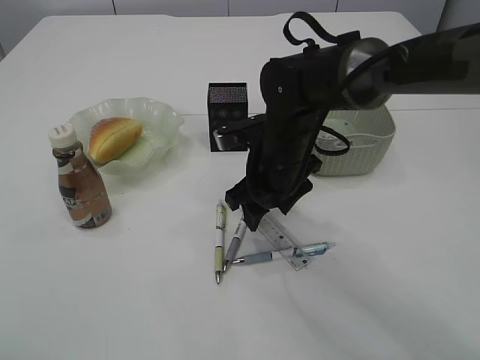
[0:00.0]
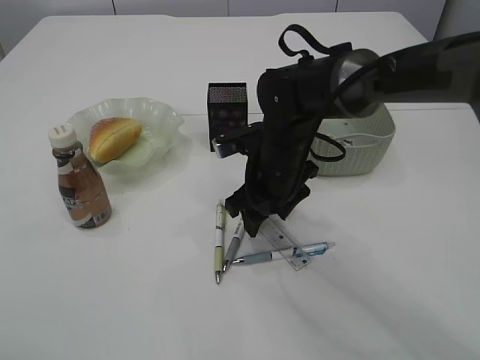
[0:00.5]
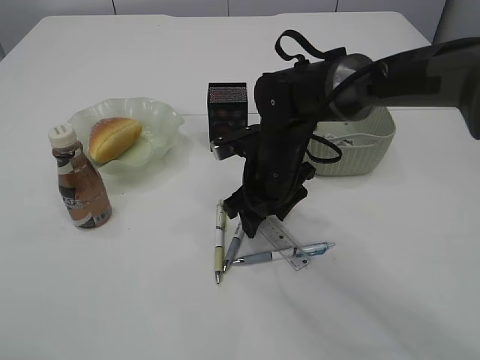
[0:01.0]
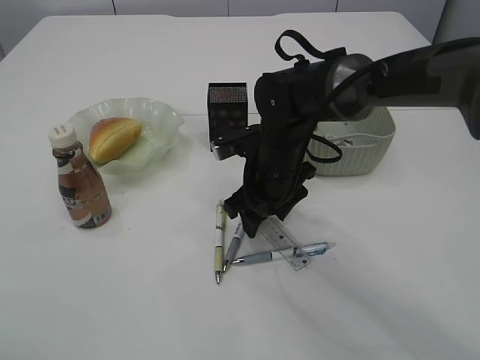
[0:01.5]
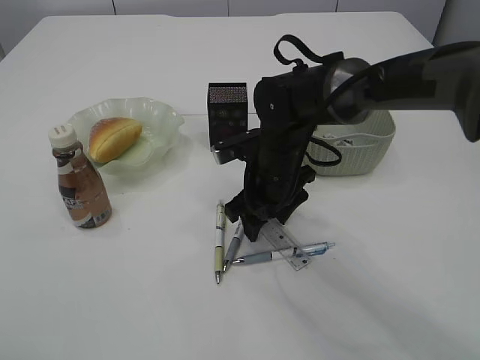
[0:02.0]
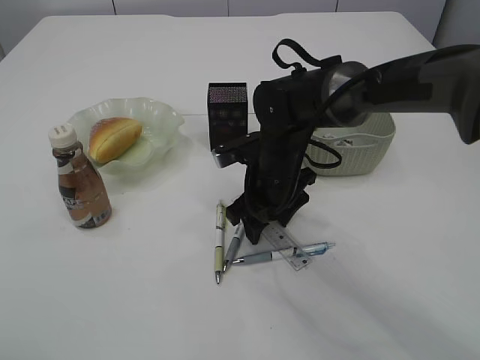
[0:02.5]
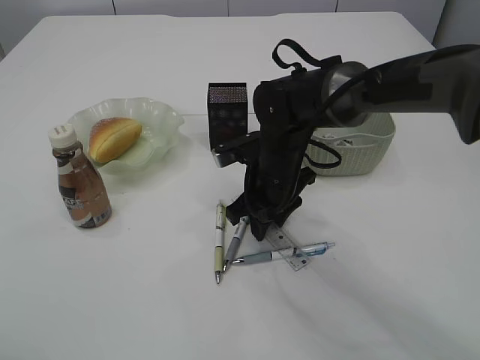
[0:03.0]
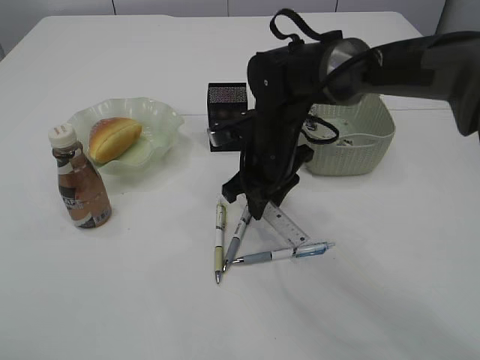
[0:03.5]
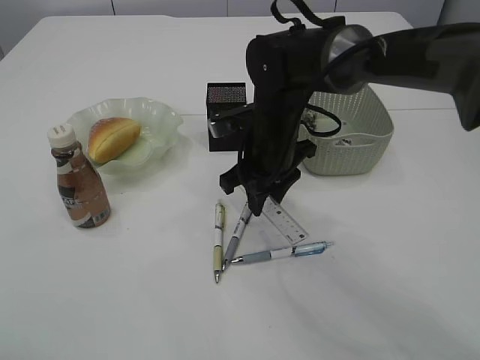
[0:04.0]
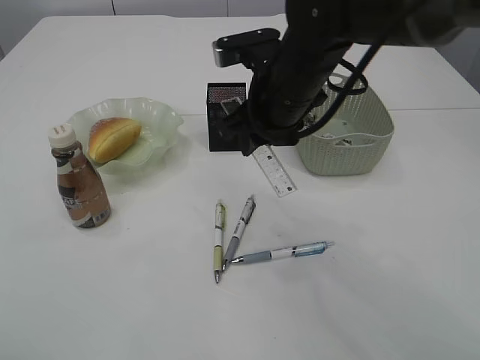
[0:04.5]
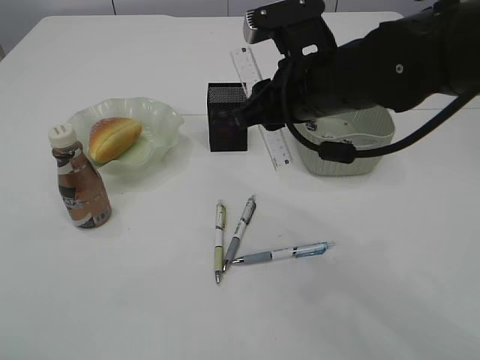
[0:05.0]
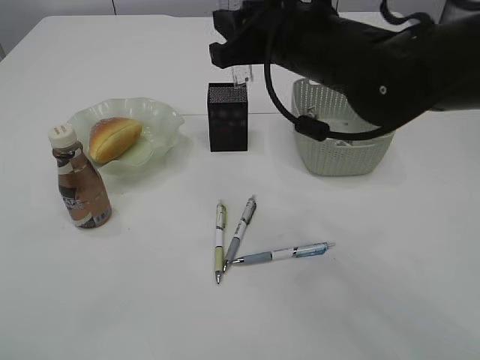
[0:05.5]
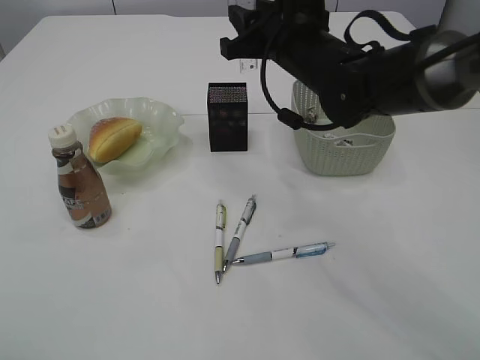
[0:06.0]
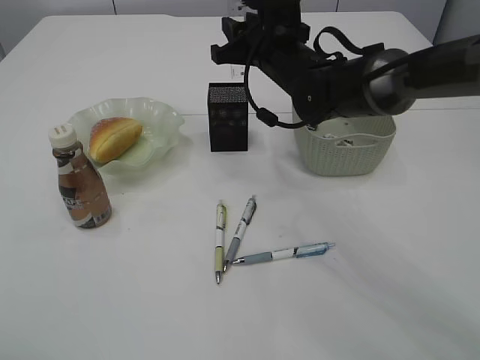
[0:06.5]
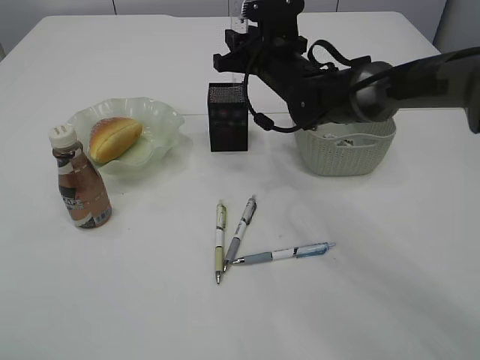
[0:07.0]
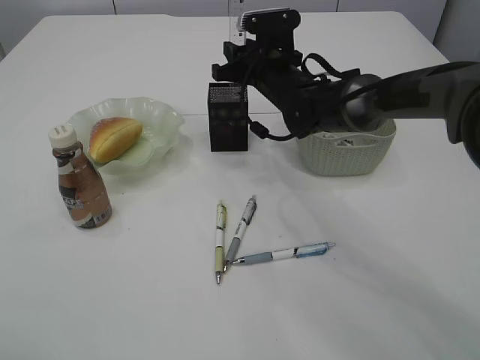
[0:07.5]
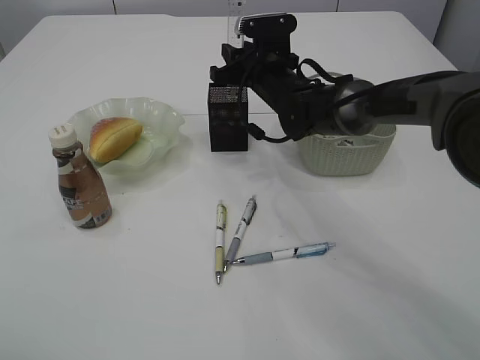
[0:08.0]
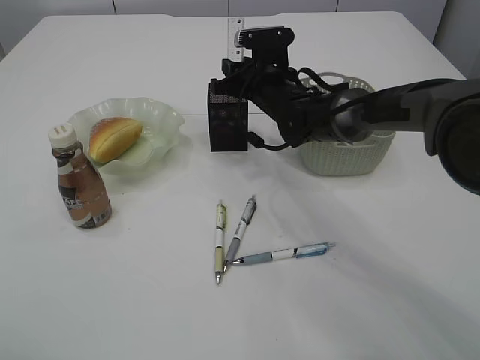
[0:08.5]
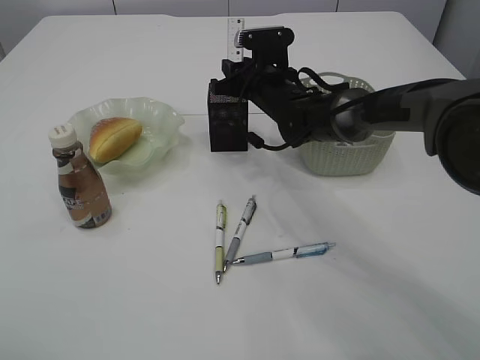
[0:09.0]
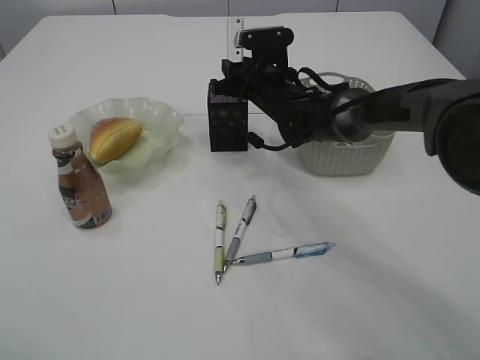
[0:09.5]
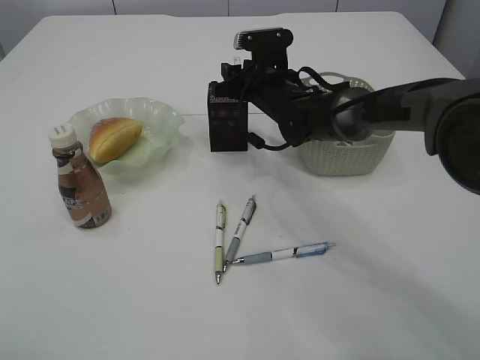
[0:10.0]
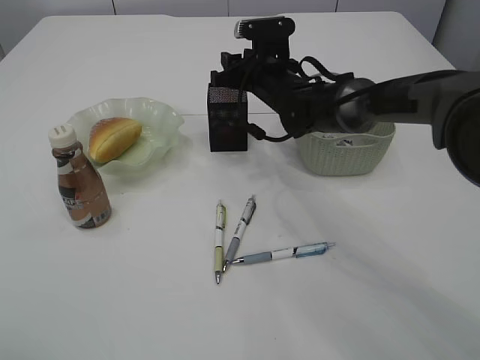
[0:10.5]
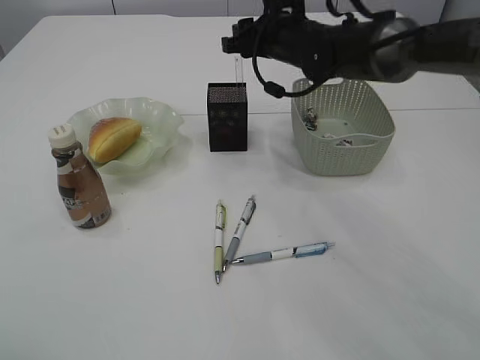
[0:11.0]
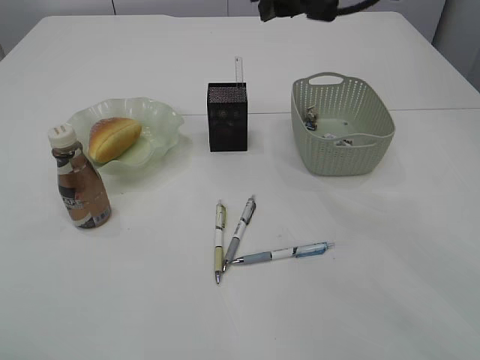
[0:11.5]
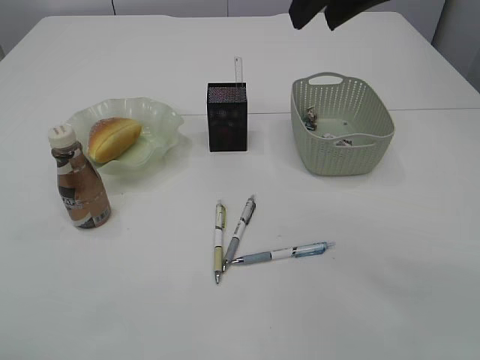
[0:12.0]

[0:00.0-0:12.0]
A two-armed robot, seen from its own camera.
Step, 0:00.0 to 0:04.0: pick up the ruler.
Step, 0:04.5 to 0:11.0: Place the ruler into the pen holder.
0:00.0 to 0:02.0: There are only small adjustments of the grippers.
0:02.0 to 0:04.0: The right gripper closes its fingers.
0:04.0 to 0:06.0: The right gripper shifts some 10 cm upward.
0:06.0 to 0:08.0: The right gripper moves forward and downward, roughly 10 cm.
0:08.0 to 0:10.0: There are only small adjustments of the grippers.
0:10.0 to 0:12.0: The right gripper is displaced upward and backward by about 30 cm.

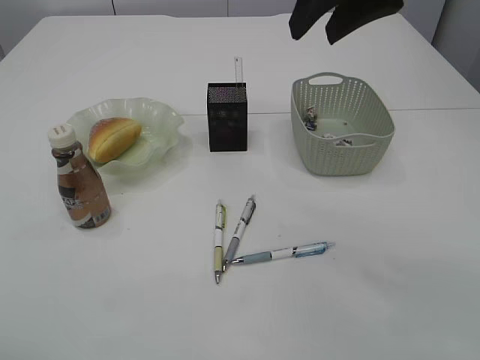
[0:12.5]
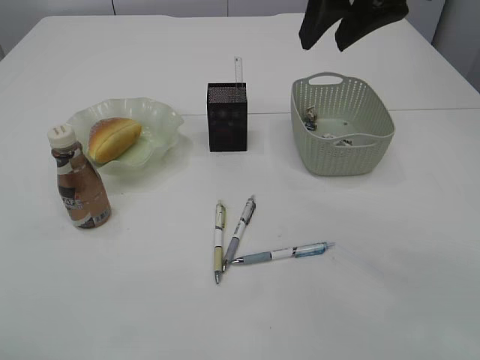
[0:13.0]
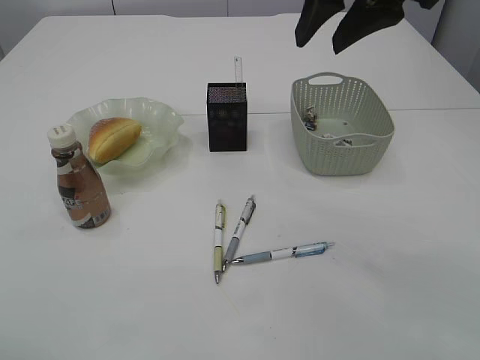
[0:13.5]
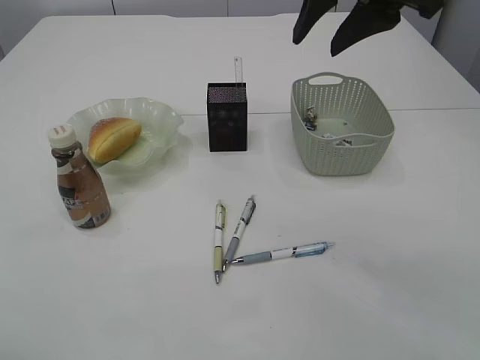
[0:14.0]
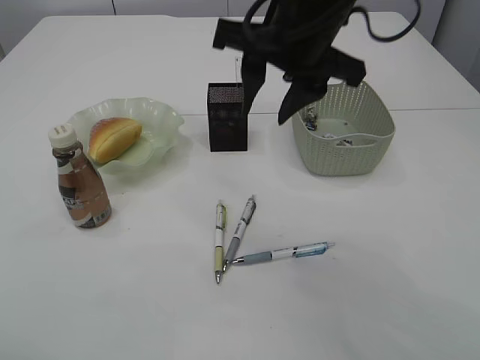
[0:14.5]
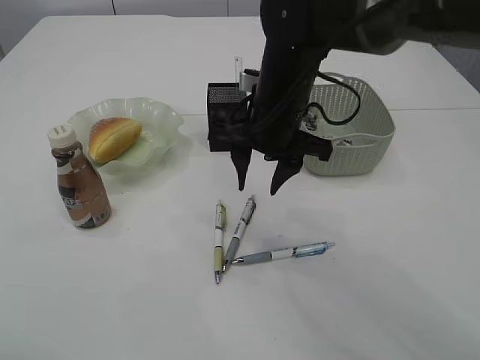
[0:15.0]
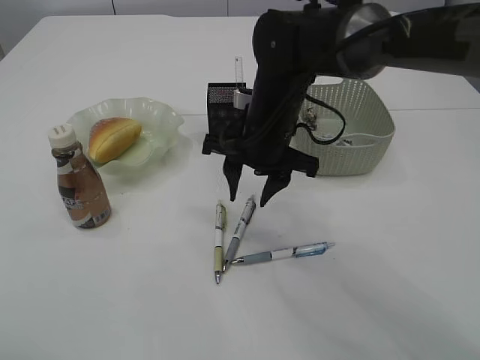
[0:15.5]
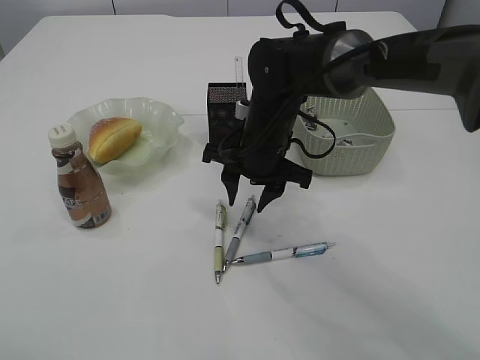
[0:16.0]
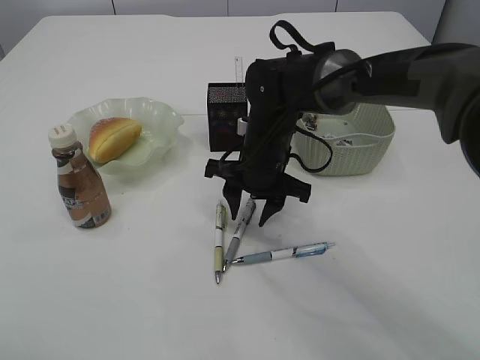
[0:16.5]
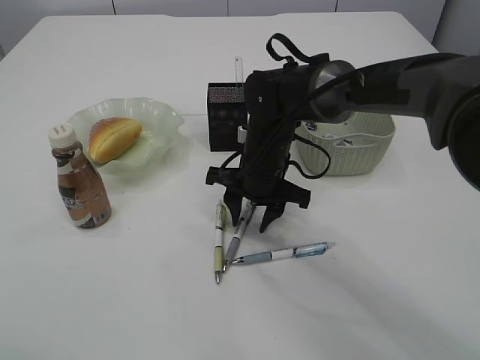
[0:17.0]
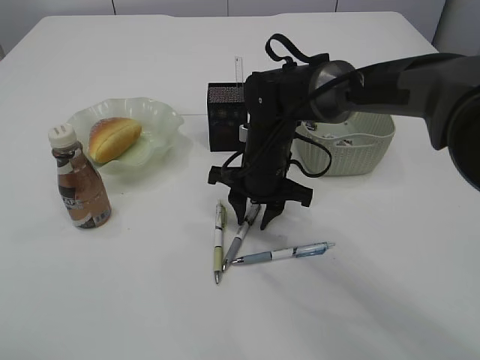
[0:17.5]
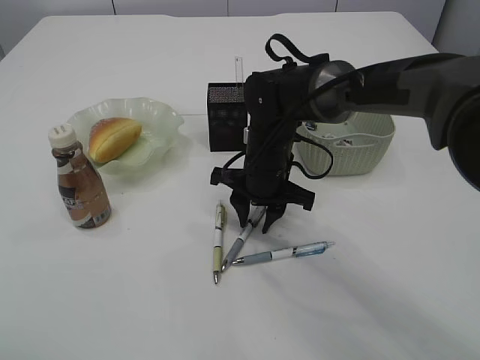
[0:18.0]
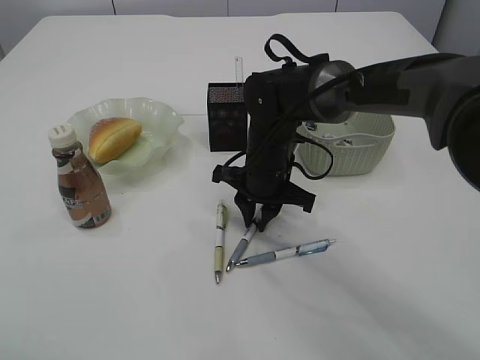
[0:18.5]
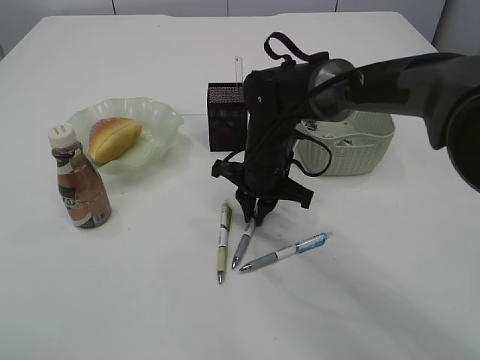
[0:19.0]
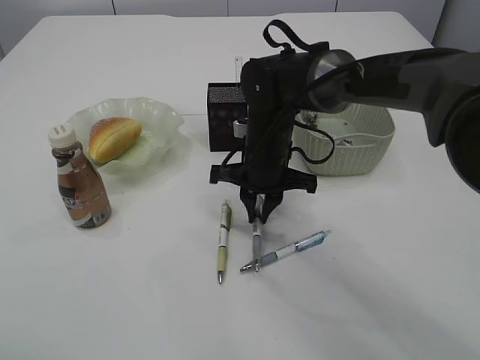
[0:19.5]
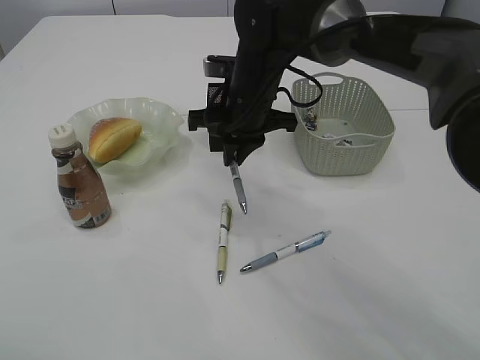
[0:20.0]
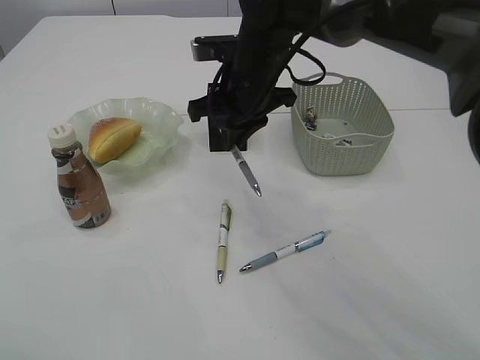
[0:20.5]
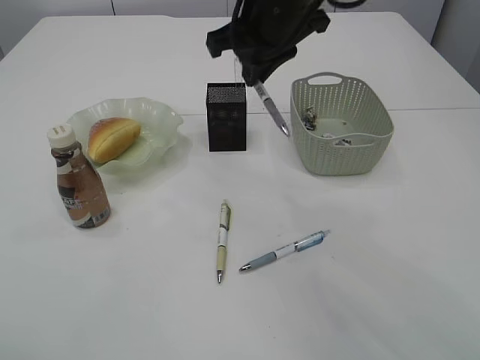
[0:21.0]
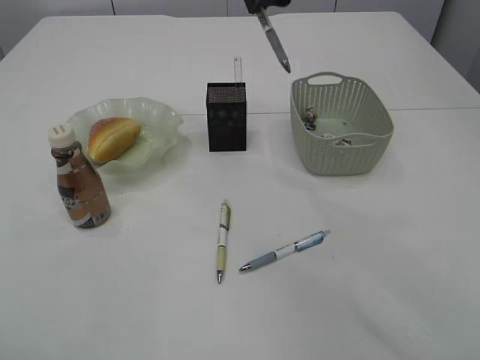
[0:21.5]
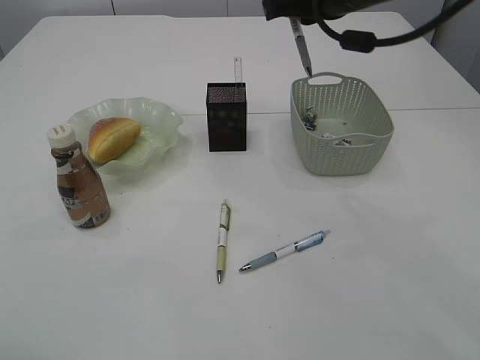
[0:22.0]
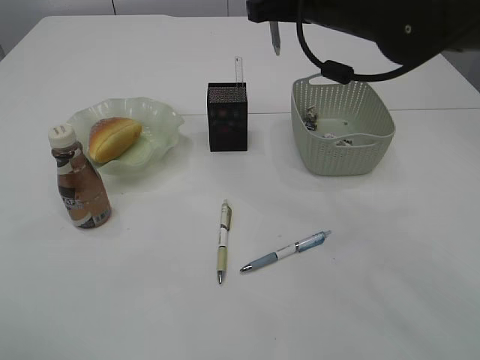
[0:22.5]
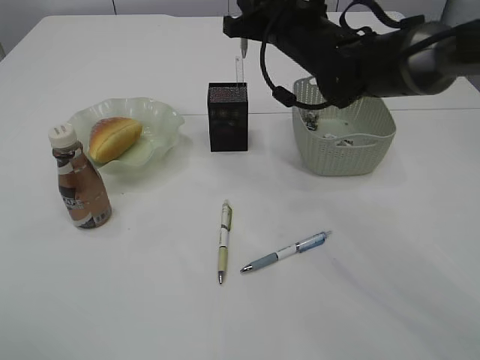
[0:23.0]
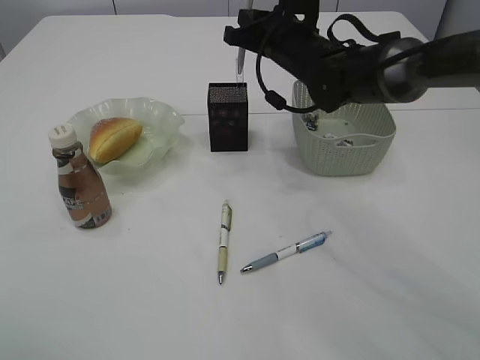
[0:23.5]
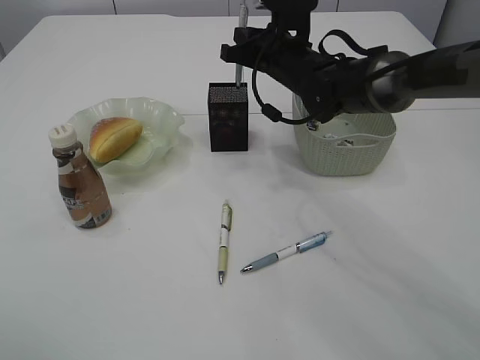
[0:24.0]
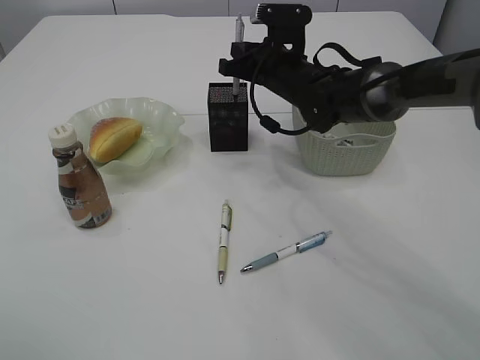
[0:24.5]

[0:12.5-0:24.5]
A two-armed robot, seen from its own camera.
Step, 0:12.5 to 0:19.5: Pick up the pen with right arm.
0:12.5 to 0:14.5: The right gripper moves downward and to the left, approximately 10 cm.
0:14.5 to 0:16.5: The right gripper is displaced downward by approximately 20 cm.
0:16.5 to 0:18.5: The grippers move only a little.
0:18.5 to 0:20.5: The right gripper goes approximately 10 cm upward.
0:20.5 to 0:22.5: The right gripper moves to the right and upward, roughly 10 cm.
0:22.5 to 0:24.5: The right gripper heads downward and forward, covering some 15 cm.

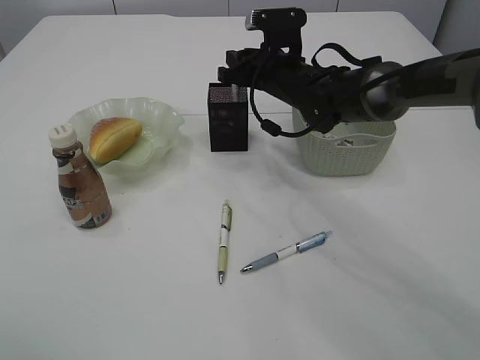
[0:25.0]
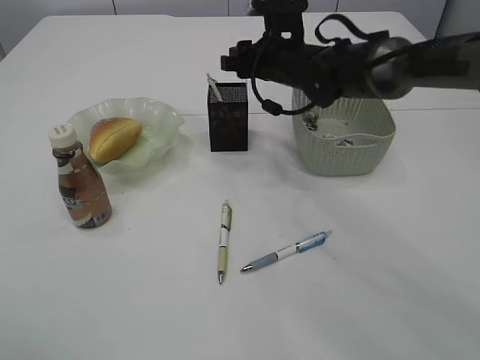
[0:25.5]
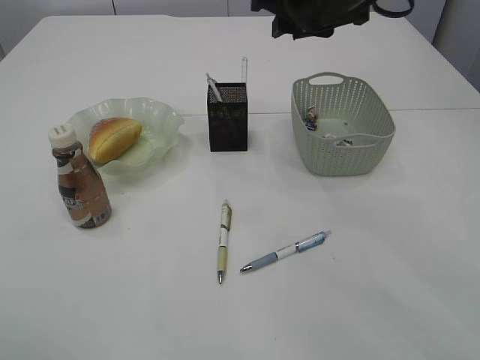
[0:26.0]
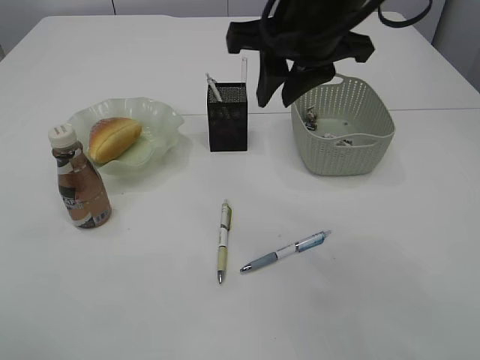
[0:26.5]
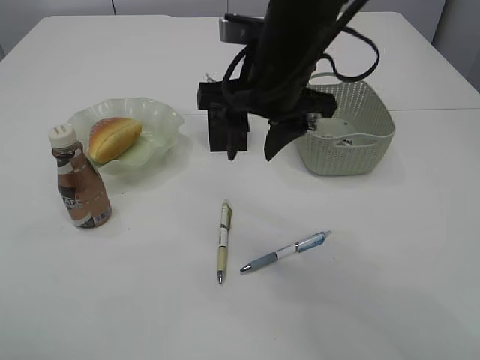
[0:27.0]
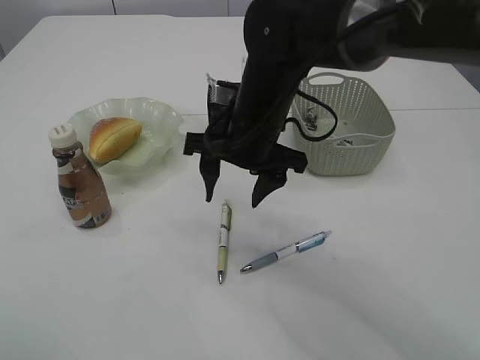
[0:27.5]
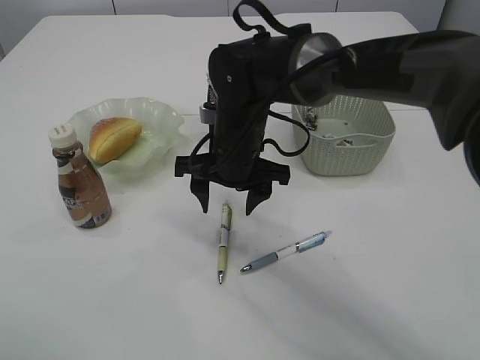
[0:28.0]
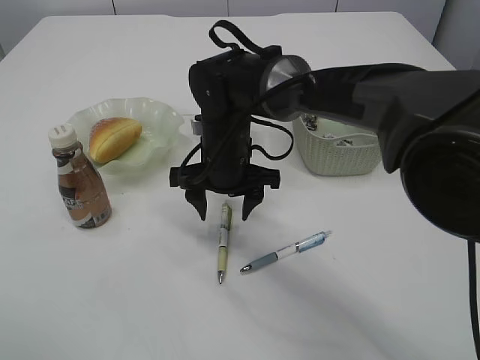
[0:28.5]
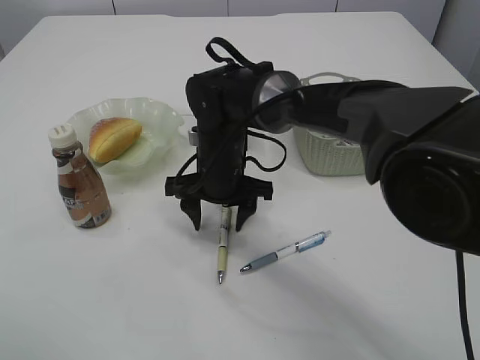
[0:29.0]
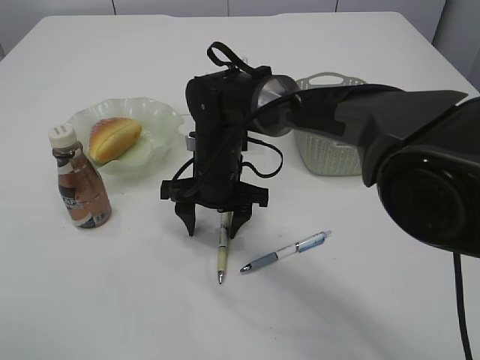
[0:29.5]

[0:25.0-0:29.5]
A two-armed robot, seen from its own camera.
0:25.0 to 0:27.0: The right gripper goes approximately 20 cm backward and upward.
0:27.0 to 0:29.5: The right gripper moves downward and to the left, roughly 15 cm.
